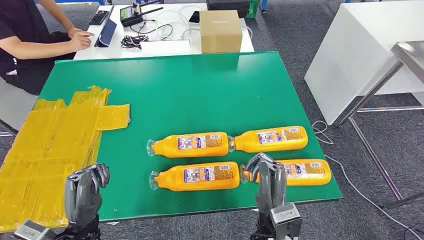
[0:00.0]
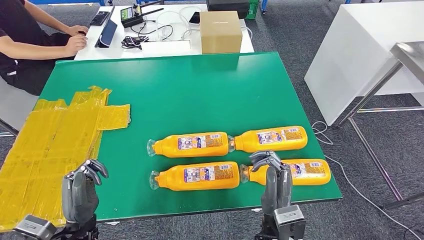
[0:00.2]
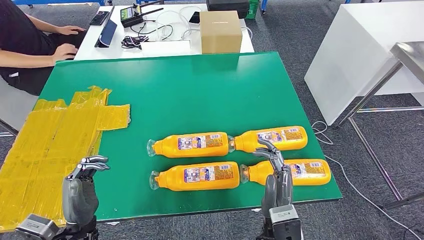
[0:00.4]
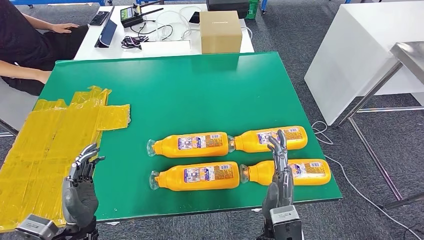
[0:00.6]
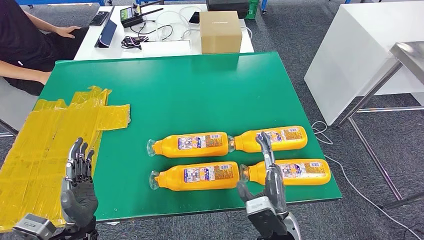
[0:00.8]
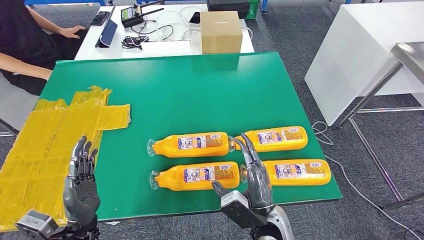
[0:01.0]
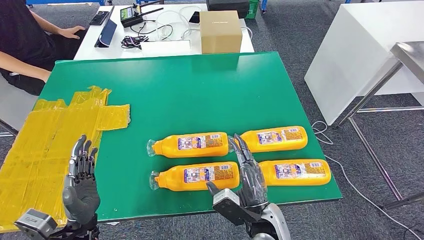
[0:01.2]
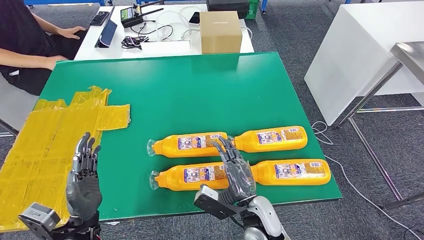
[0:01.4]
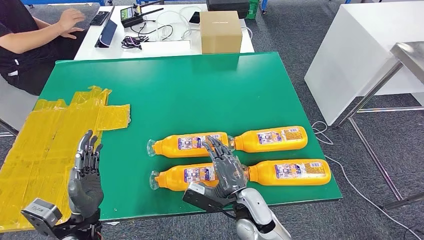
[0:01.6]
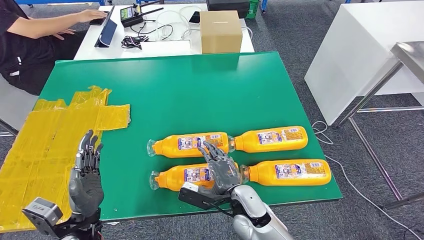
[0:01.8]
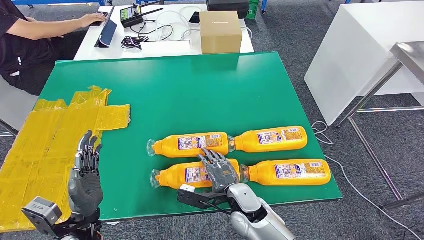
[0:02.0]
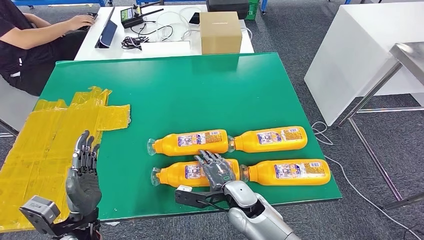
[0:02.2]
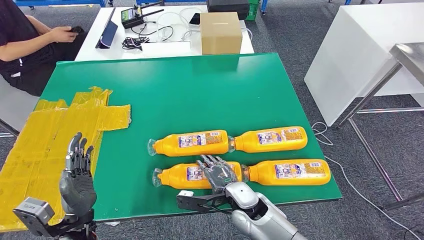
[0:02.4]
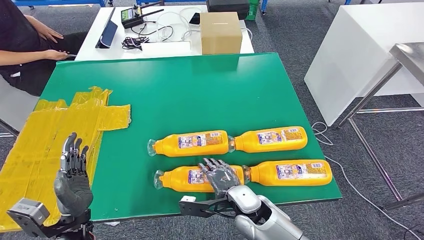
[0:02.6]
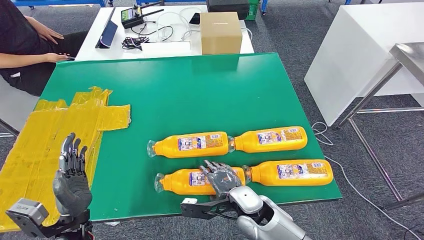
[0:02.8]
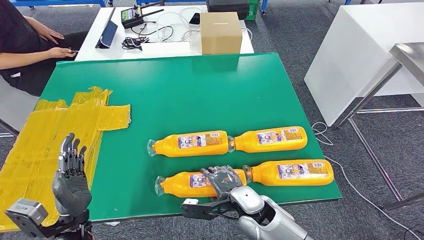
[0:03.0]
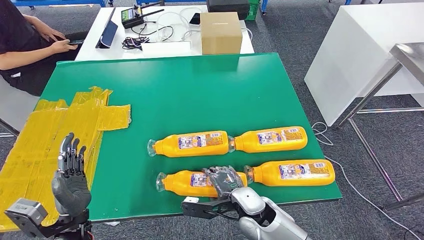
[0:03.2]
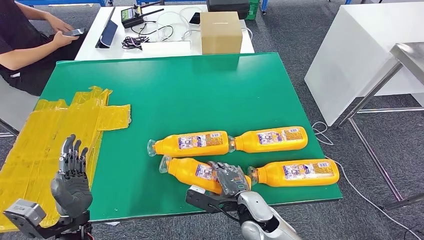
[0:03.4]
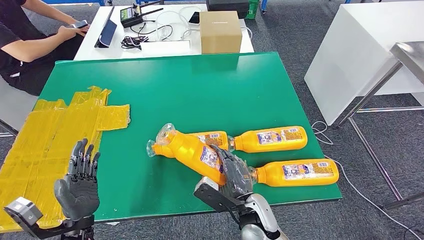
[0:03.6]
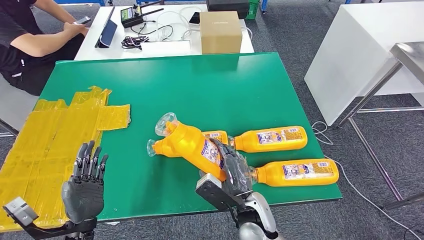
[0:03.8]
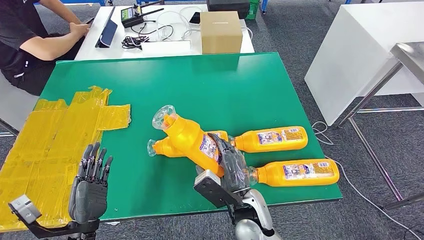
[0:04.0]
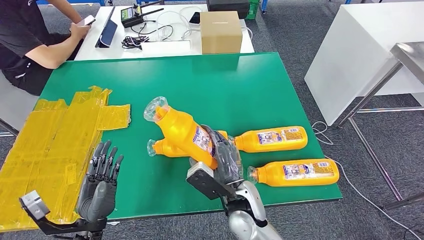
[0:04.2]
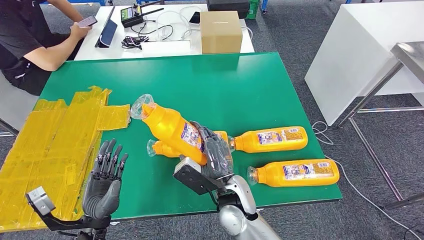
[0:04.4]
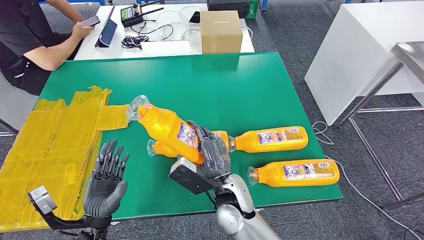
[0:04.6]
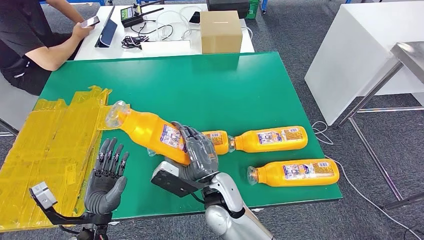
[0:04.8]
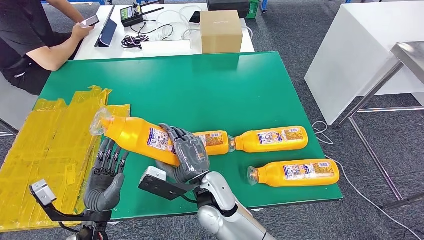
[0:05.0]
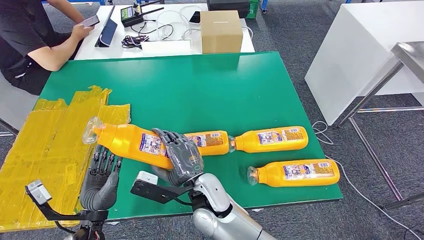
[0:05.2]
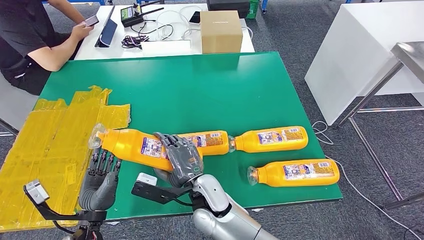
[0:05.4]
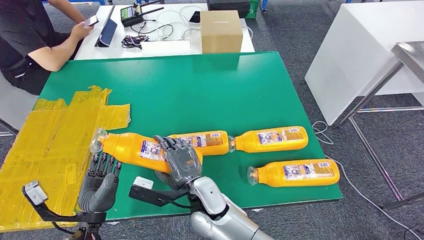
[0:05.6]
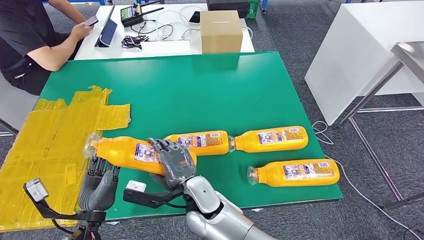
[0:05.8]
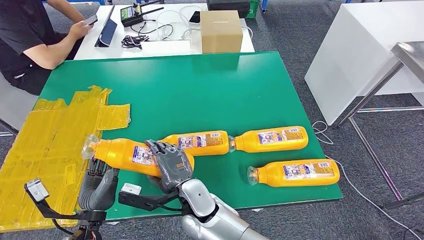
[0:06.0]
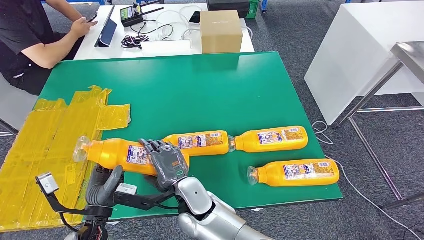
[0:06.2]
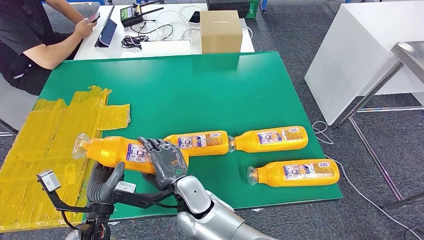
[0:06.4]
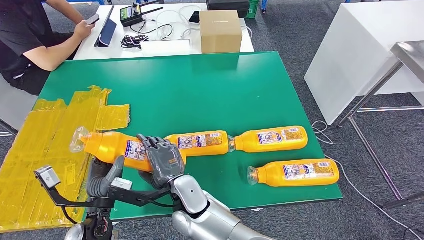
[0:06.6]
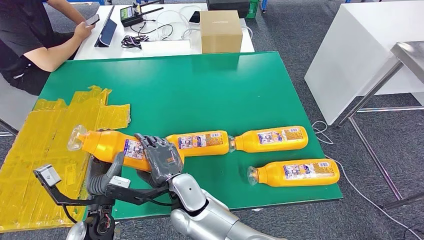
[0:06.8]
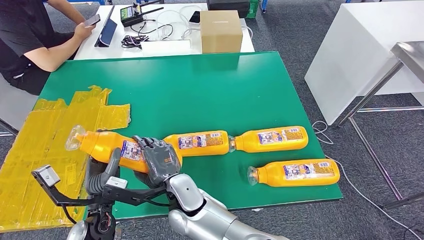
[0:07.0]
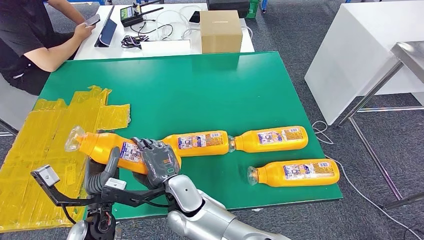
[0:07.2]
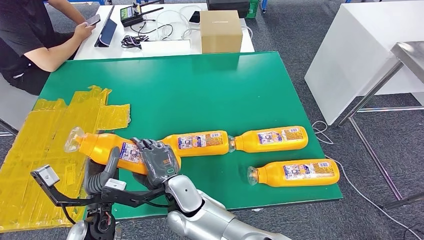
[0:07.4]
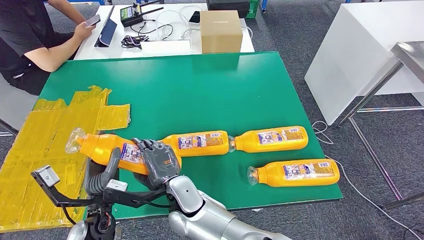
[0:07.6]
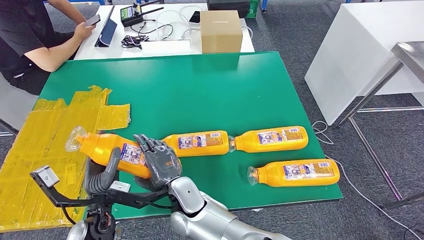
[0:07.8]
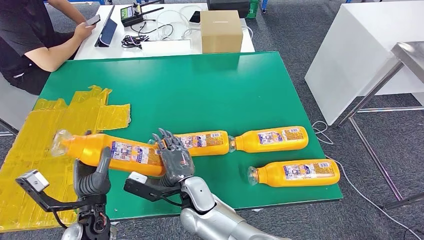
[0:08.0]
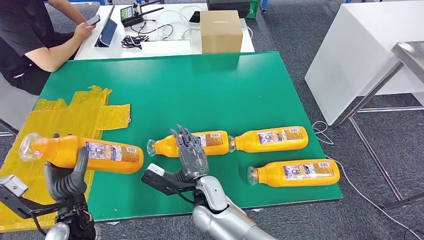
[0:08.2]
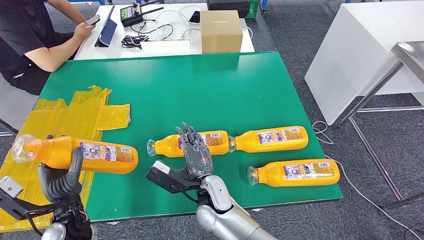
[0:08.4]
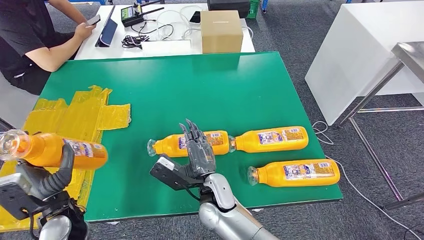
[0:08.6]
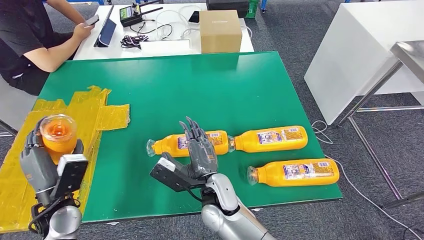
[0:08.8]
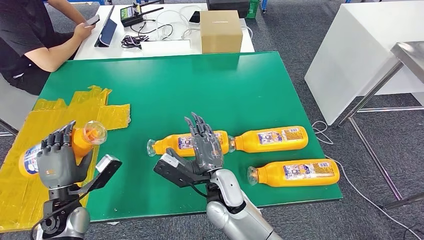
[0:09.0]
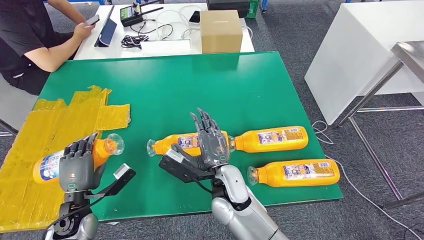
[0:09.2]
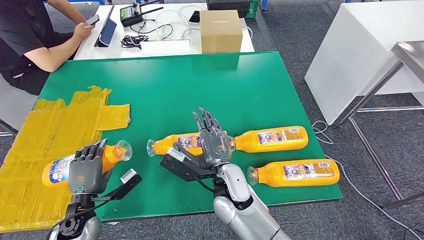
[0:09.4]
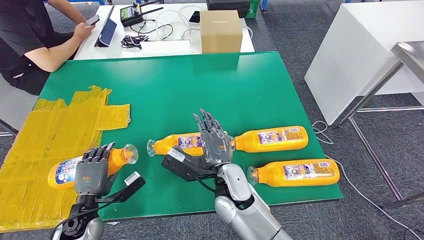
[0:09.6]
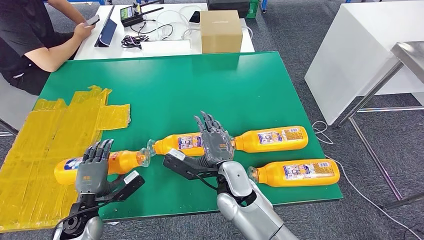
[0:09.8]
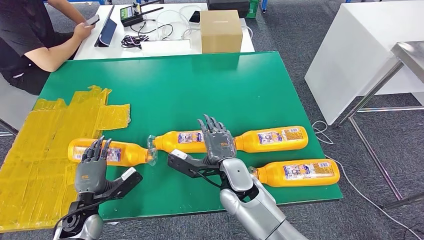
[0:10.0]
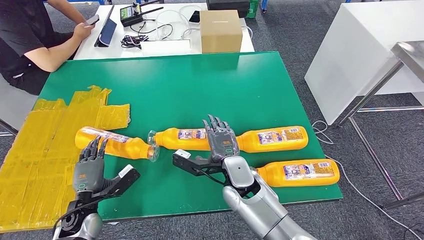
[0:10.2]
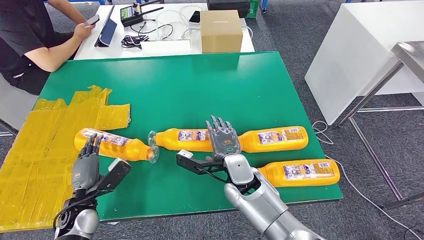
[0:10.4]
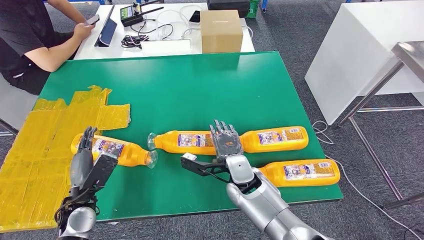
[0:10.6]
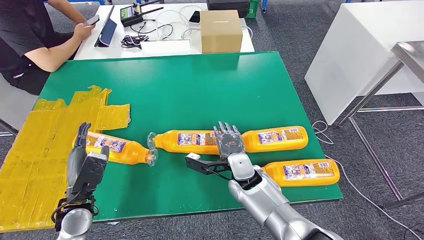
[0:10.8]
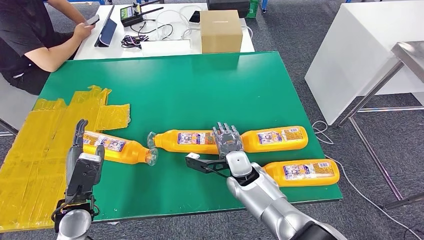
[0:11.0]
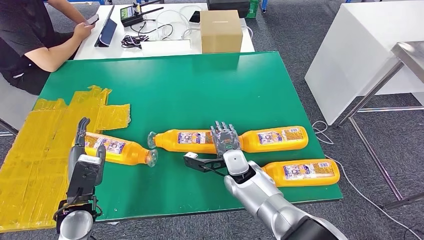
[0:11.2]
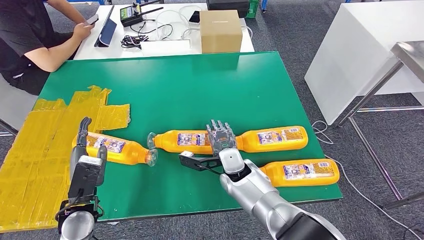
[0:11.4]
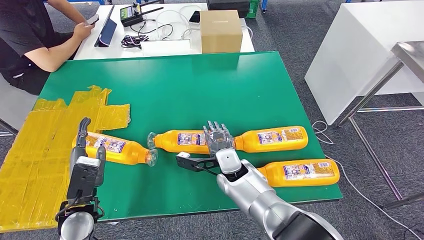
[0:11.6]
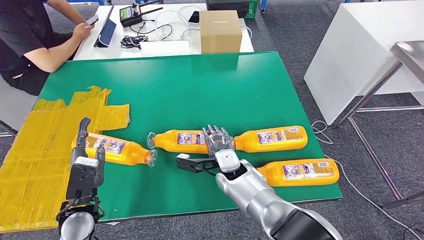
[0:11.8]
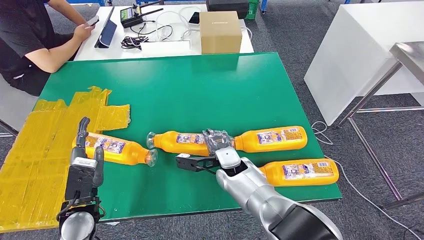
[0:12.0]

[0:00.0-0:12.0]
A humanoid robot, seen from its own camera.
Step, 0:00.0 to 0:05.2: Take the fast-moving consumer goods bottle from the table.
Step, 0:05.4 to 0:09.8: Flip the fast-moving consumer goods bottle to the front side.
0:04.4 to 0:06.0: The right hand heads to the left, covering about 10 cm.
0:06.0 to 0:07.6: The hands make only small movements.
0:07.6 to 0:09.0: The right hand moves to the right, some 10 cm; the left hand shifts approximately 10 cm to the left.
0:09.0 to 0:10.4: The left hand shifts by roughly 5 cm. Meanwhile the right hand changes place by about 5 cm.
0:10.4 to 0:12.0: The right hand shifts by some 5 cm. The left hand shifts about 5 cm upward.

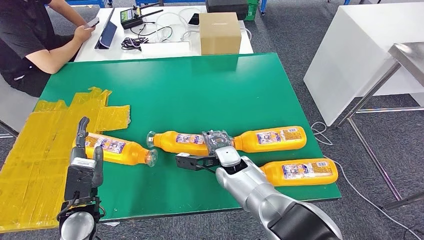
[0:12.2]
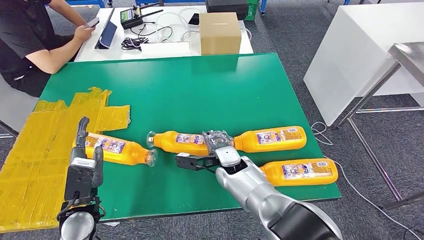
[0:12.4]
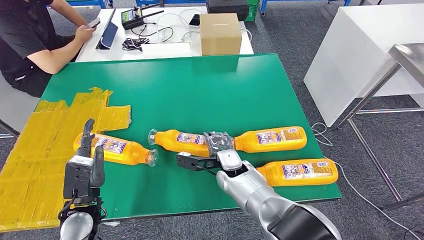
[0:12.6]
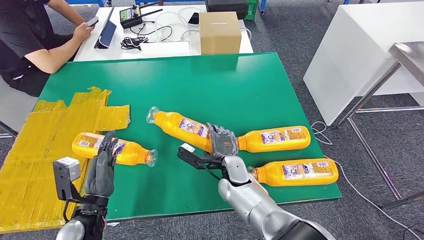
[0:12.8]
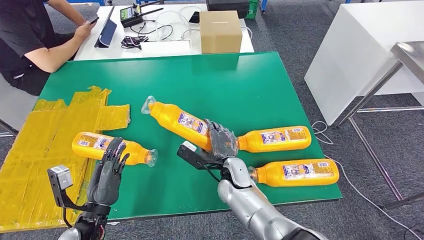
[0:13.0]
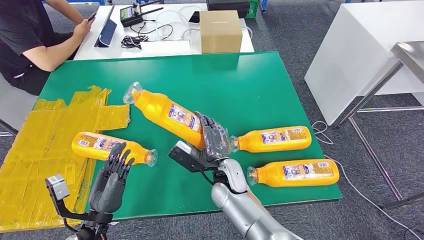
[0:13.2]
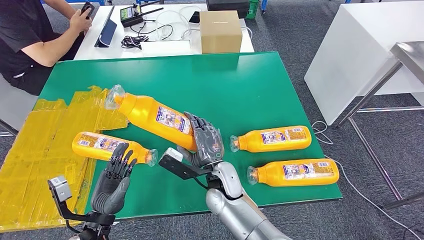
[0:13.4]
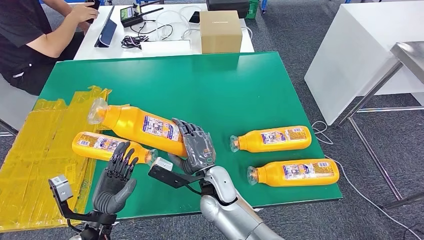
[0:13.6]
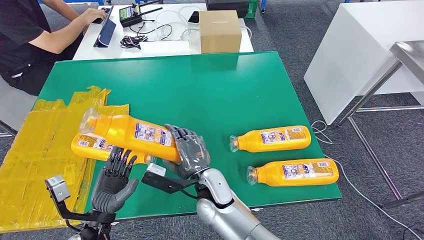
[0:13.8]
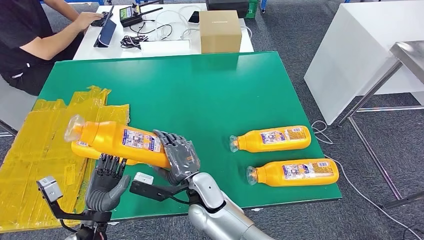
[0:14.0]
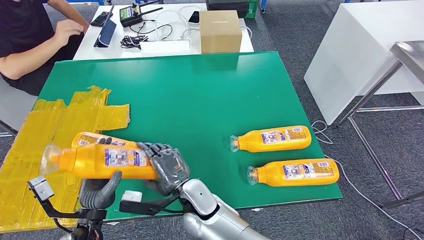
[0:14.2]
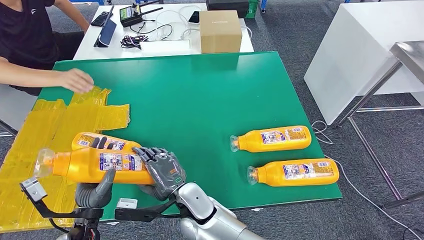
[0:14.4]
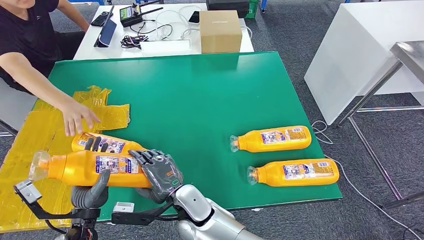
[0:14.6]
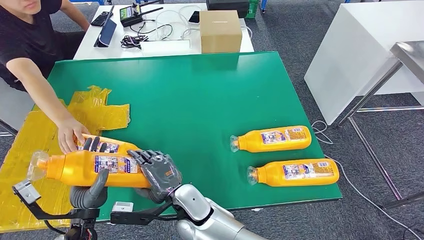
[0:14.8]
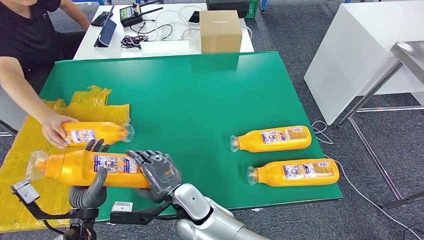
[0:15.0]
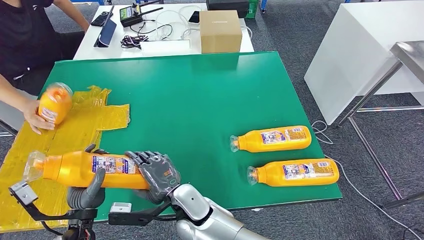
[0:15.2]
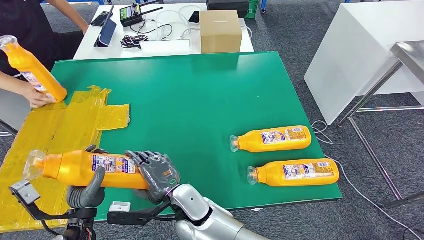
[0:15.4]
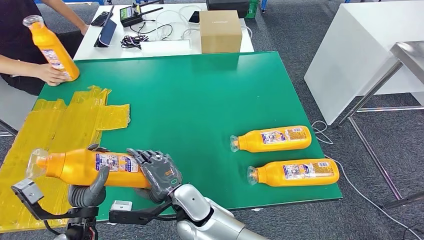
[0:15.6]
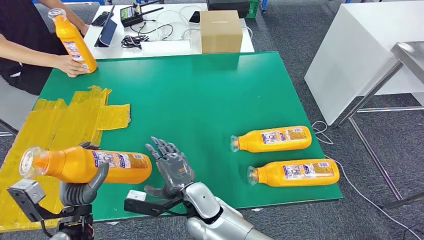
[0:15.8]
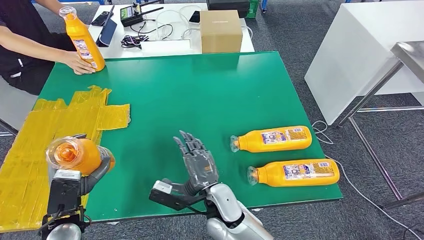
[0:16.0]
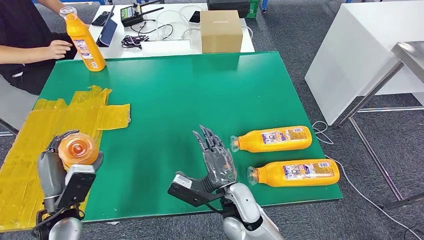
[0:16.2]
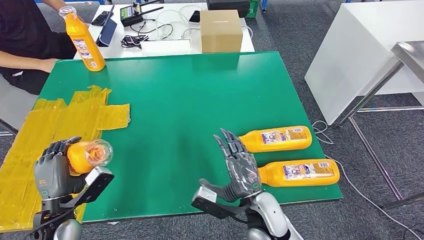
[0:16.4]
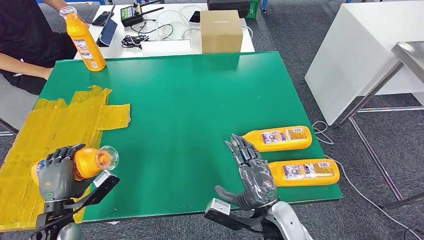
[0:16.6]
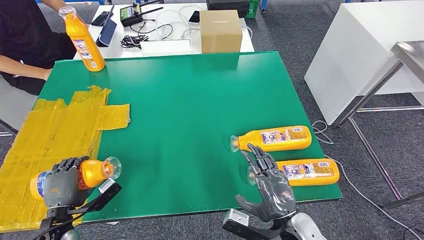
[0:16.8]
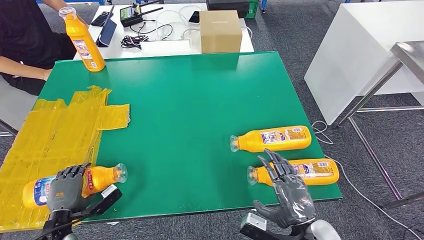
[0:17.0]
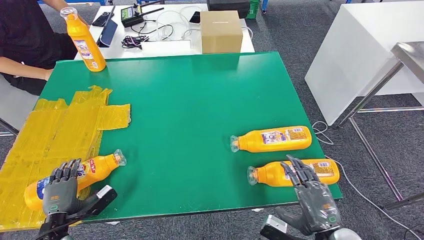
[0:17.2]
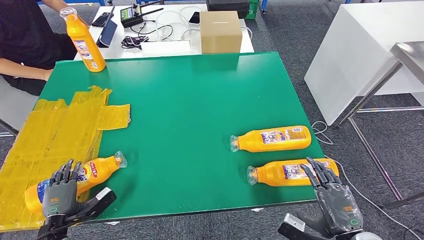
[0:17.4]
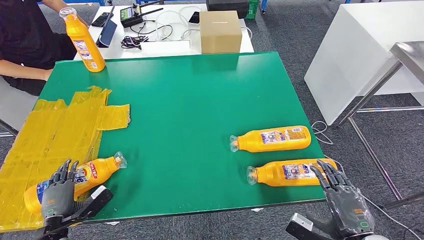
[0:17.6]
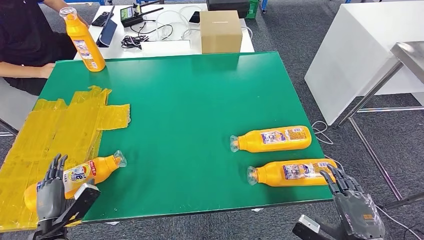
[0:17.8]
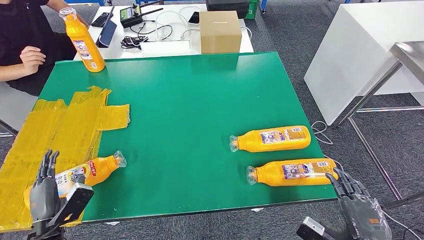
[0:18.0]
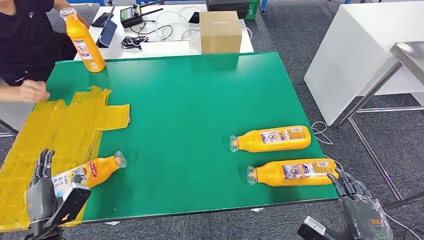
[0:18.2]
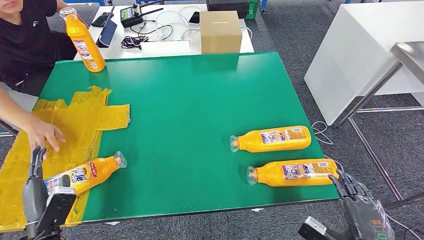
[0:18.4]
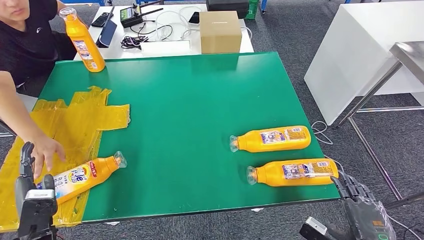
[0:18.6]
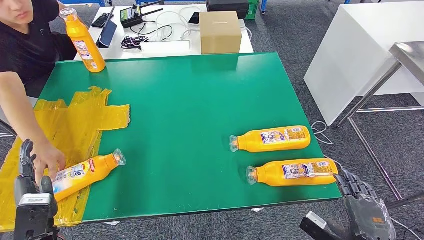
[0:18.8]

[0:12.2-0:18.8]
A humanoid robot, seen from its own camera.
Step, 0:12.2 to 0:14.6: Pick up the fast-moving consumer goods bottle from the table.
Step, 0:14.8 to 0:17.2: Flip the fast-moving consumer goods bottle to the front side.
0:17.2 to 0:18.8: The left hand moves upward, roughly 10 cm; the right hand shifts about 5 cm to the right.
